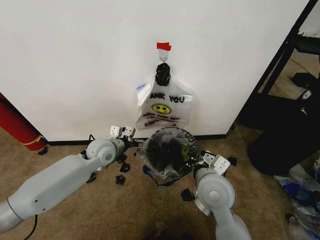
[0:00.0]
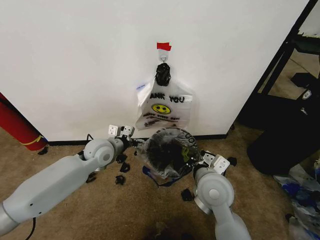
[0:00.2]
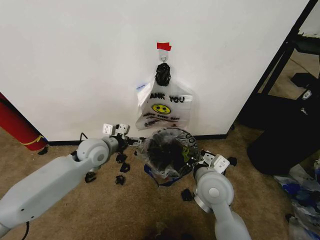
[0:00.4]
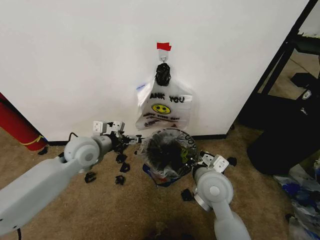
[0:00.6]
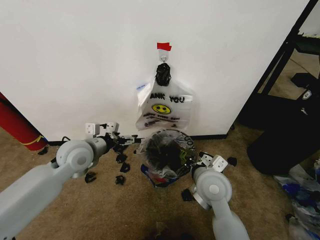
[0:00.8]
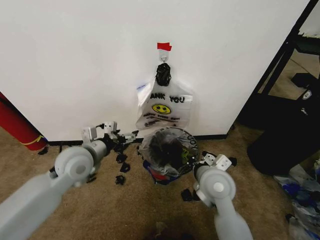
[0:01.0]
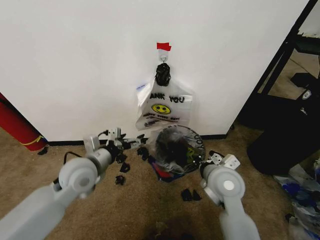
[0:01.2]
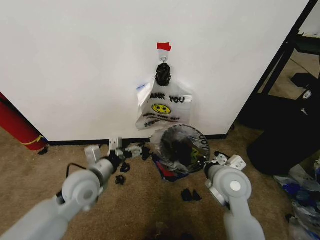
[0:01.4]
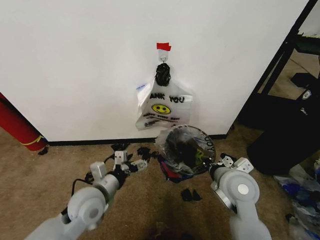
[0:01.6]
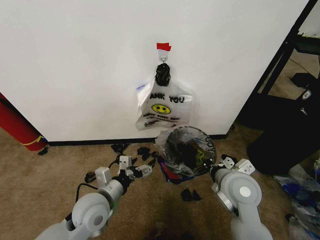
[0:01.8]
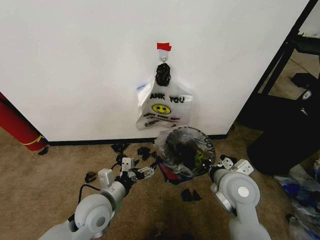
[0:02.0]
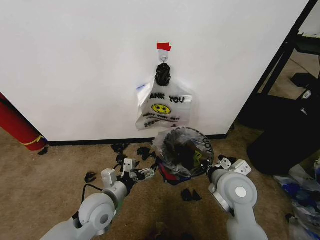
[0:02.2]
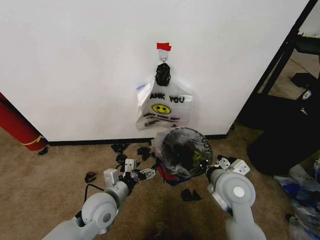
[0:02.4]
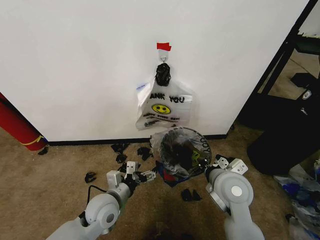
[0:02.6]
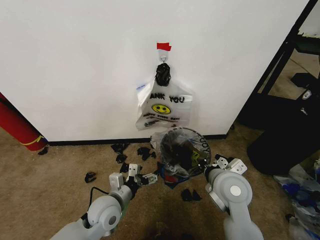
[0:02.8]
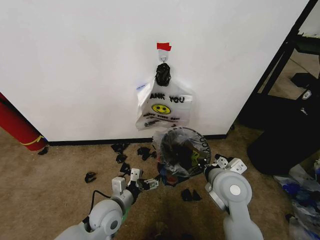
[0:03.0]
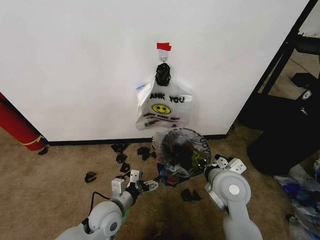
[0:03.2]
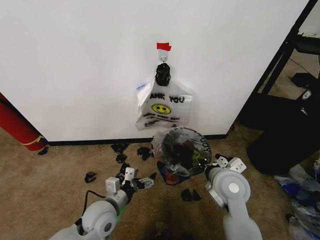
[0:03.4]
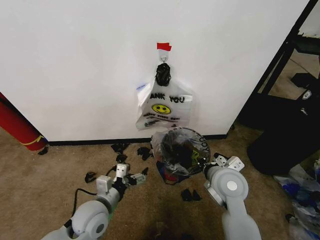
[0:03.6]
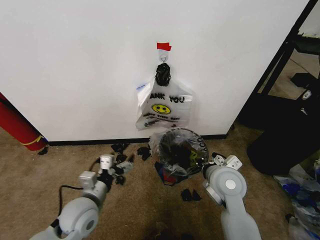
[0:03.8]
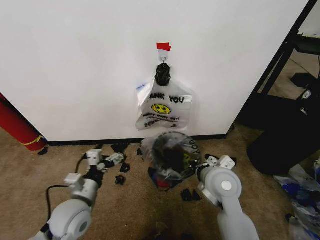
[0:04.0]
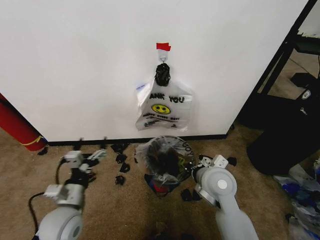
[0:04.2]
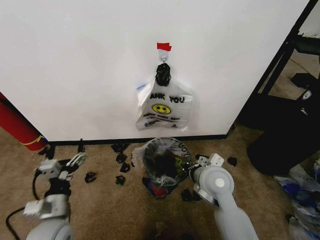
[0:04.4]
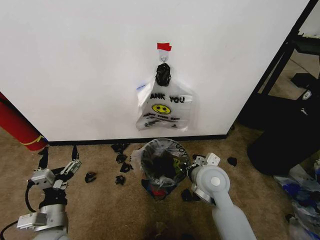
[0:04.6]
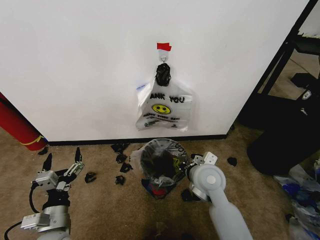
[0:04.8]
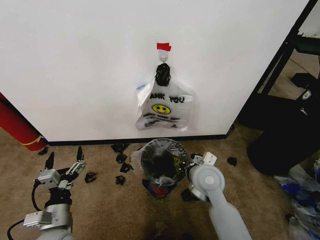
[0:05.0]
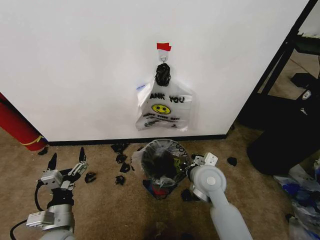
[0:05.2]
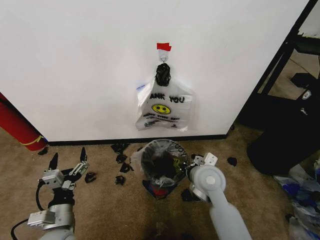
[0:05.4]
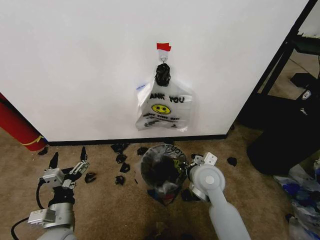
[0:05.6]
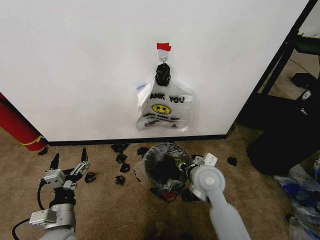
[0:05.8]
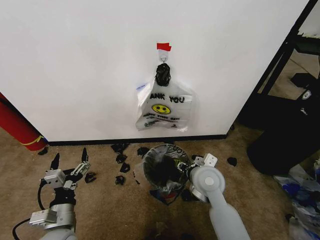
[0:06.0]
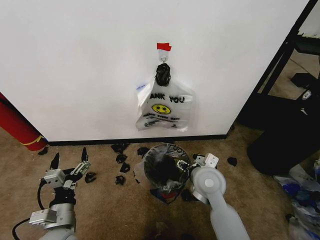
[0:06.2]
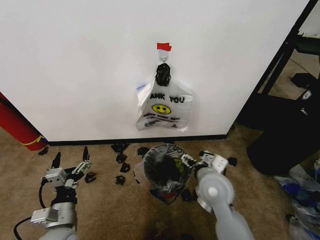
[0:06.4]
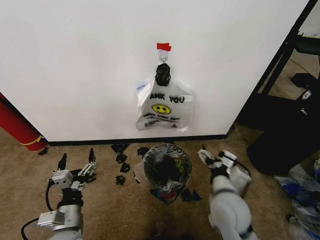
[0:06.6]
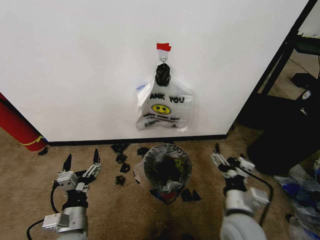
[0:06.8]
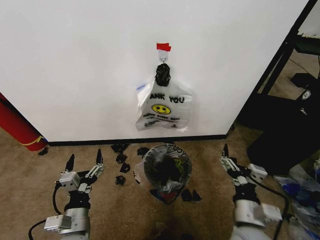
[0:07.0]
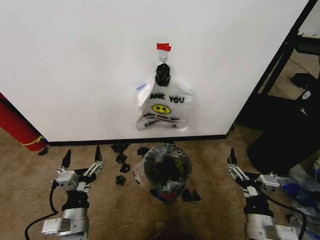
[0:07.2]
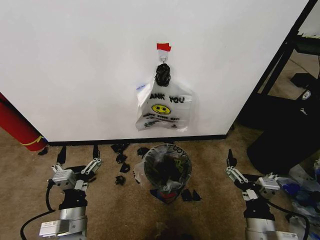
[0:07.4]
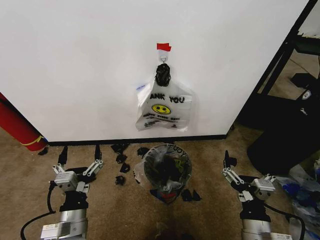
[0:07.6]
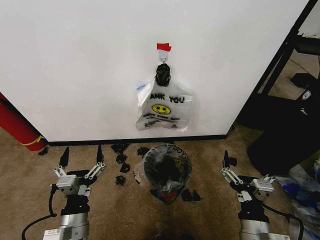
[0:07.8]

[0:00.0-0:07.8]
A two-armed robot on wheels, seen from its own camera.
Task of the whole recording: Pick up the garbage bag from the wall and place it over the trash bin.
0:00.0 to 0:01.6: The left gripper heads backward, covering roughly 15 cm. The right gripper moves to the right, approximately 5 cm.
0:01.6 to 0:03.2: The left gripper travels downward by some 10 cm.
0:03.2 to 0:04.6: The left gripper shifts roughly 15 cm to the left and backward. Meanwhile the right gripper changes place by about 5 cm.
0:04.6 to 0:06.2: The right gripper opens.
0:06.2 to 0:07.8: The right gripper travels backward by approximately 20 cm. The left gripper moves to the right, roughly 5 cm.

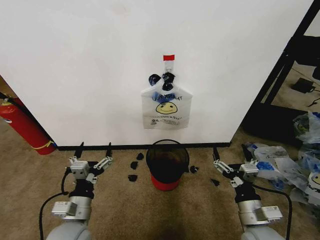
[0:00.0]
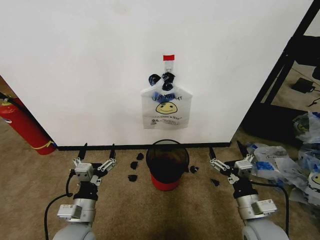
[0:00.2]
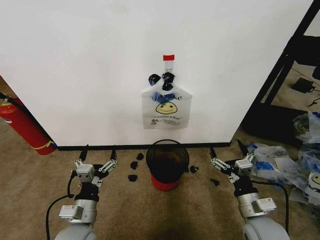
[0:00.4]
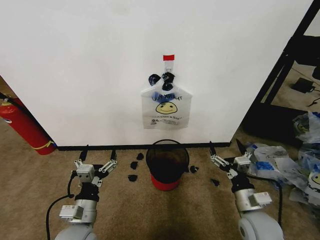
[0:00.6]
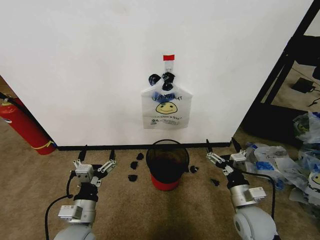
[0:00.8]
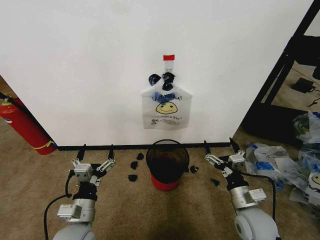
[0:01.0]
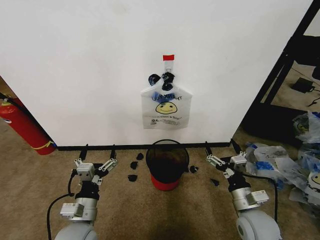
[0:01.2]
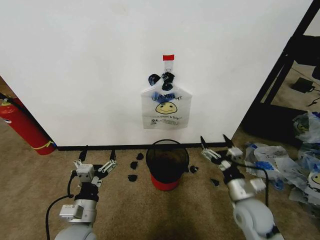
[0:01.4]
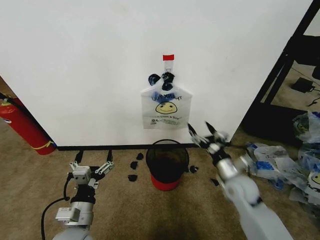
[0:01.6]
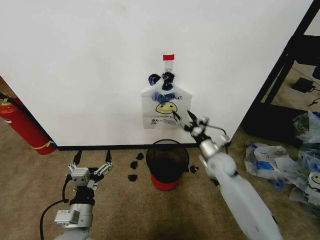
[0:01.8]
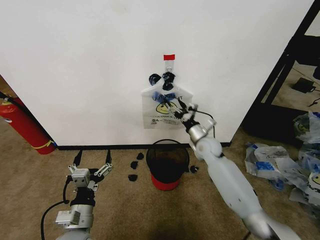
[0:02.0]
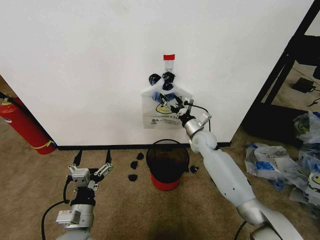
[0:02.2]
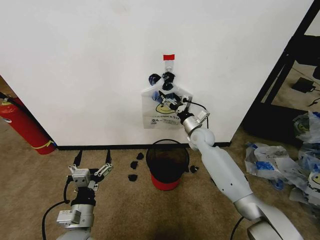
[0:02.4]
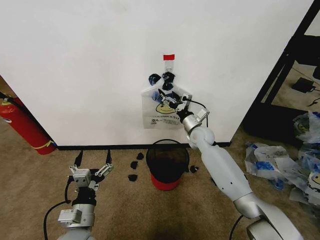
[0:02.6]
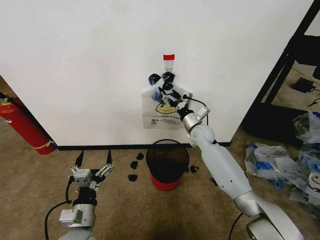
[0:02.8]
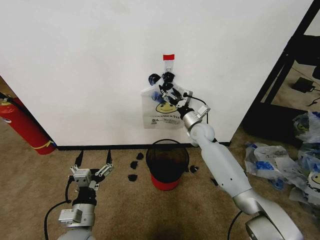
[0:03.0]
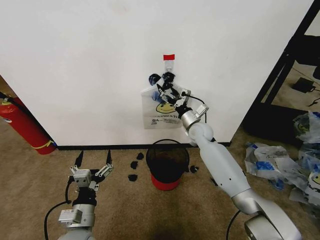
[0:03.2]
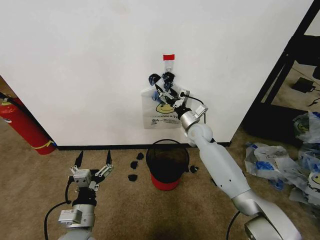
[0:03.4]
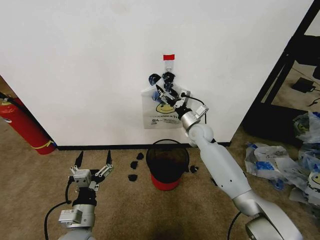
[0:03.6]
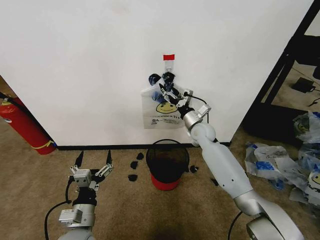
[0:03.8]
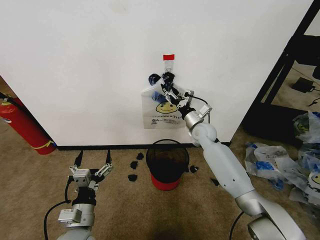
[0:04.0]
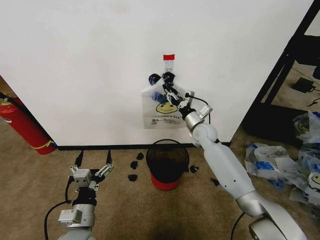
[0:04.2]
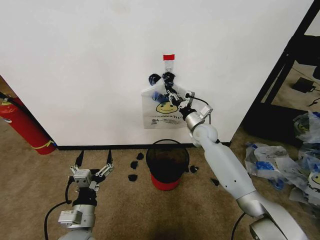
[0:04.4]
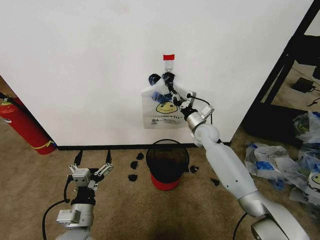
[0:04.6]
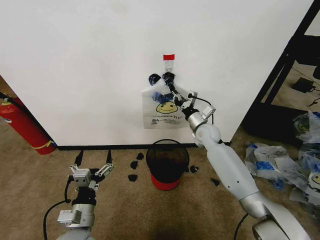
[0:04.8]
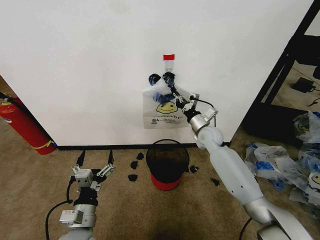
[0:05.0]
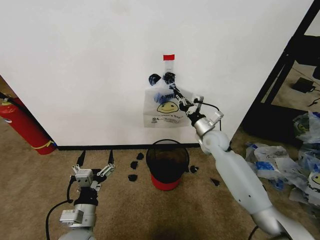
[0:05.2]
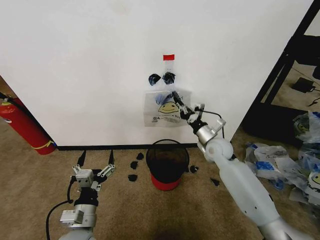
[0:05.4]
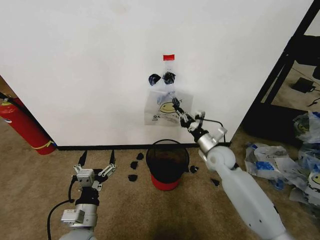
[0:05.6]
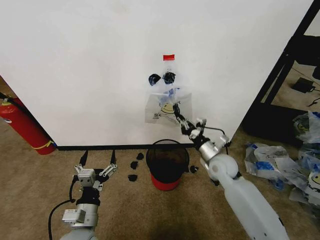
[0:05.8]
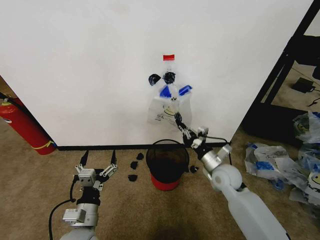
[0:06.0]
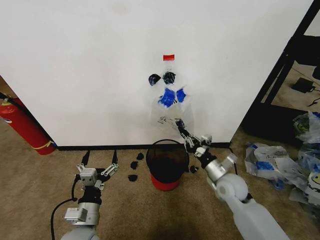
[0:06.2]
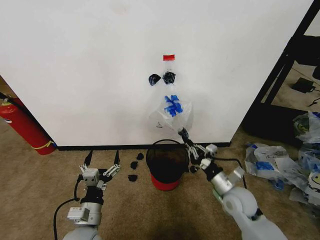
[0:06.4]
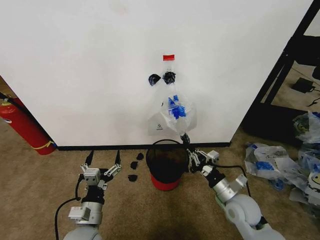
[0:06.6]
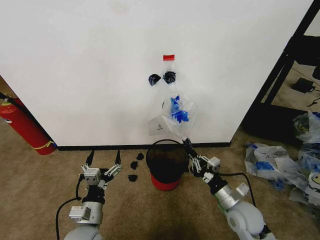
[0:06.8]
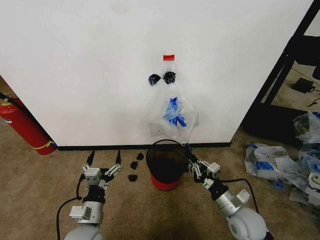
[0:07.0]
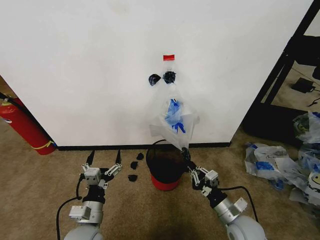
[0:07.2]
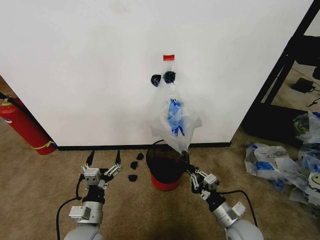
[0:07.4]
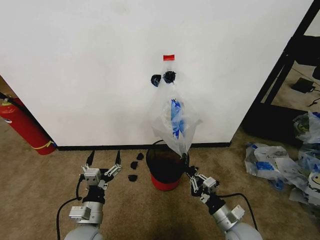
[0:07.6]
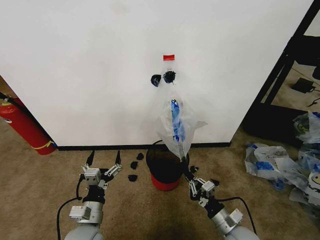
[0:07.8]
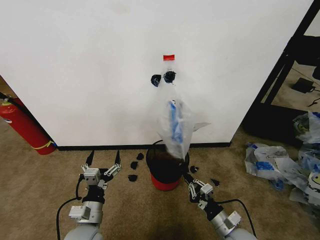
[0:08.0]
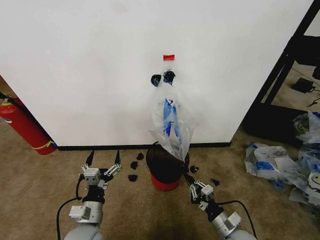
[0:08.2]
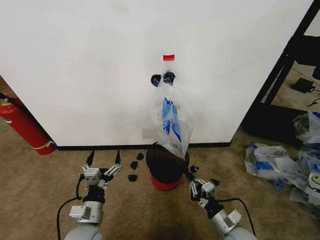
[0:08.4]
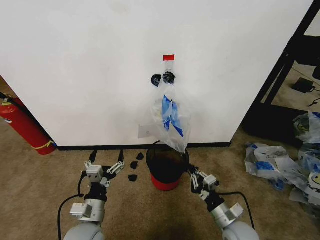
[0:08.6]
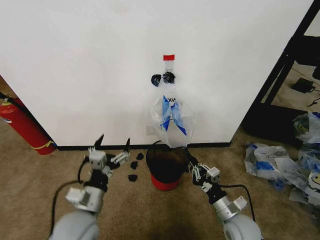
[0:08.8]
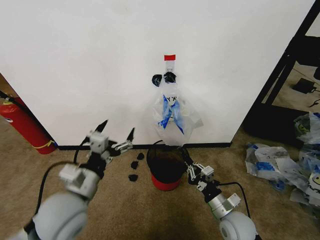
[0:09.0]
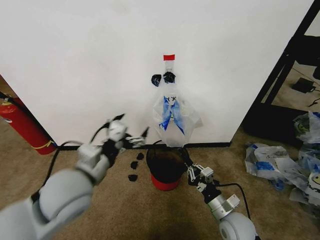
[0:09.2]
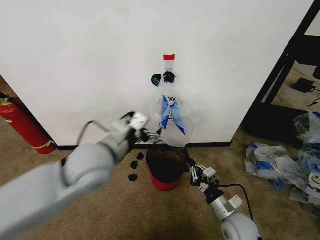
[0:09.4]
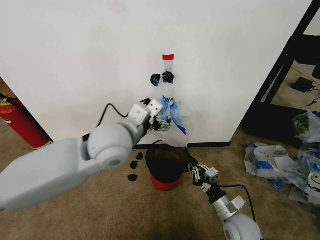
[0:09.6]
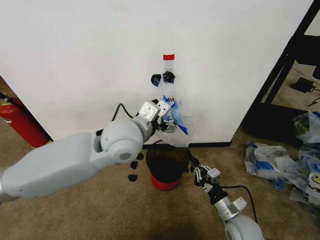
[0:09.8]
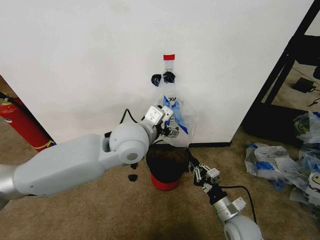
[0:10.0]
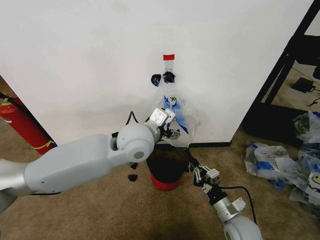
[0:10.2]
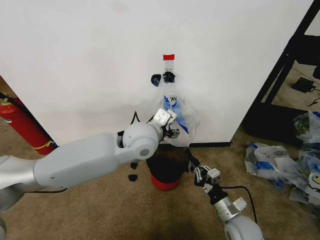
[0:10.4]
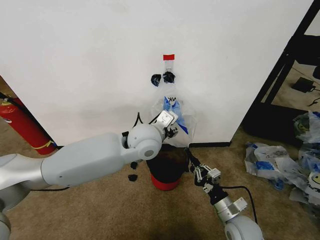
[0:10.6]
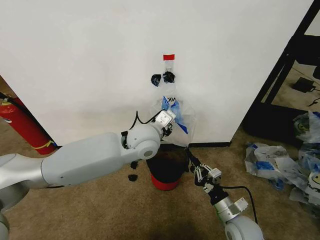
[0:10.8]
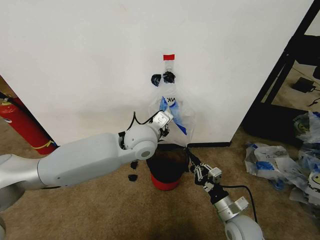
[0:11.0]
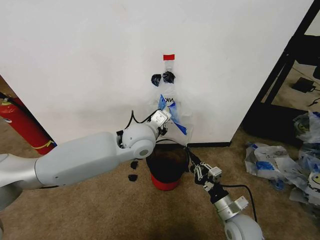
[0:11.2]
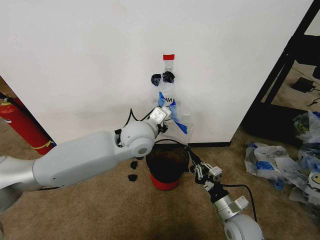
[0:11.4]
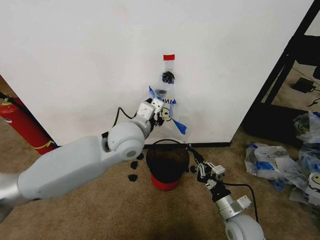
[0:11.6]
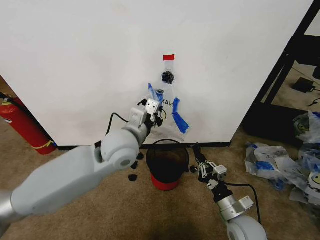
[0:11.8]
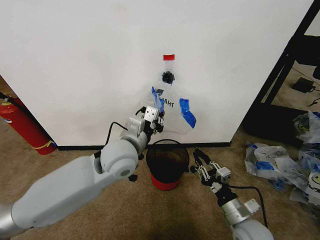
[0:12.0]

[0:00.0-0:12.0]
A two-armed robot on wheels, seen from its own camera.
Task of the whole recording: Pick up the garbage bag from the wall and place it over the trash bin.
0:01.6 to 0:03.0: The right gripper heads forward and to the left, covering roughly 25 cm.
0:03.0 to 0:04.4: The right gripper closes.
0:04.4 to 0:06.0: The right gripper heads backward, covering about 15 cm.
0:06.0 to 0:07.6: The right gripper is displaced backward and downward by some 20 cm.
0:07.6 to 0:09.0: The left gripper is displaced upward by some 15 cm.
0:09.0 to 0:10.4: The left gripper is displaced forward, to the right and upward by approximately 25 cm.
0:10.4 to 0:12.0: The left gripper heads to the left, covering some 5 cm, and closes up.

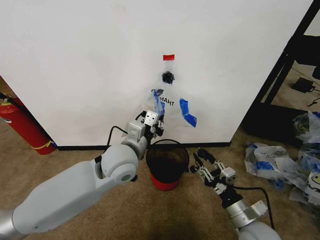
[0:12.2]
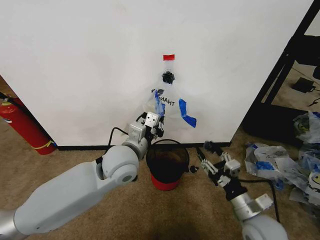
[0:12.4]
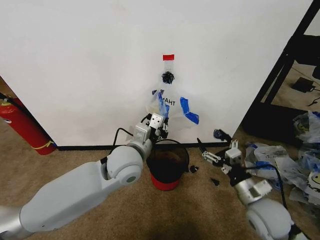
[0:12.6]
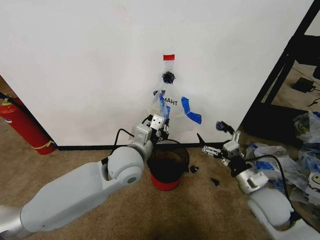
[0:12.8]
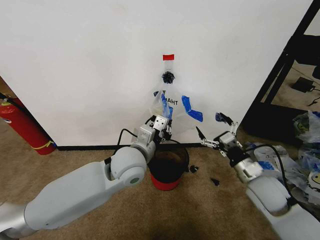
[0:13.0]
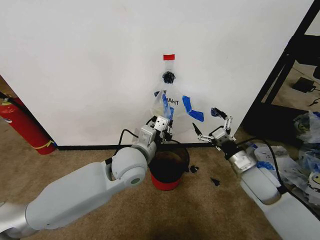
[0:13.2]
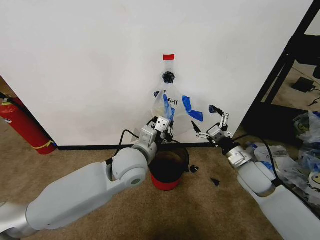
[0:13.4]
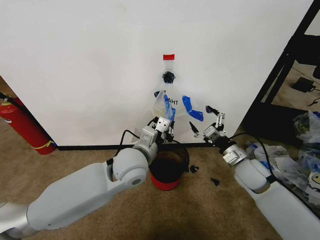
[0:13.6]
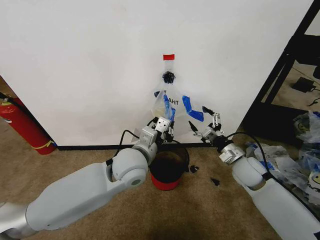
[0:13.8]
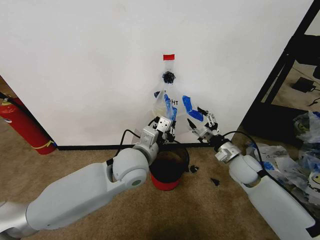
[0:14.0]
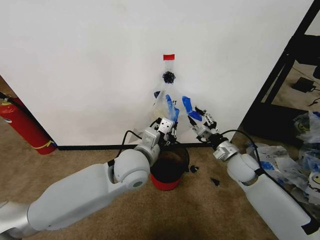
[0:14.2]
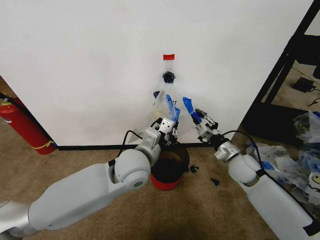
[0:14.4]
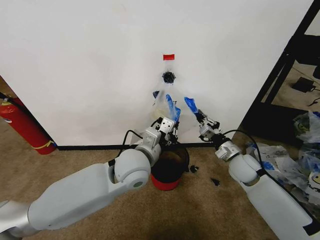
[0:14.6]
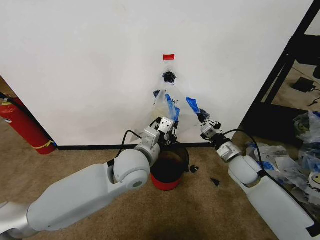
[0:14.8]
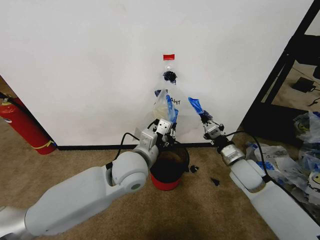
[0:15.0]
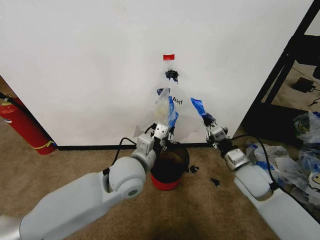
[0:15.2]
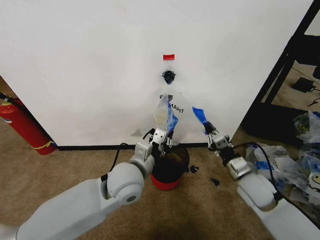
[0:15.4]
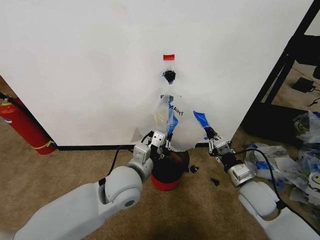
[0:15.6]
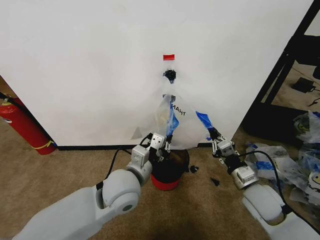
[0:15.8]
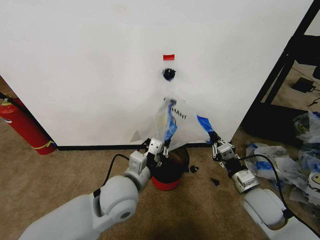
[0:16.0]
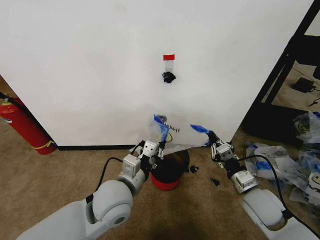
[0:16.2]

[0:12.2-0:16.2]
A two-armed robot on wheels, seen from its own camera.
Task of the whole recording: Pick up the garbage bag from the wall and place it over the trash bin.
0:12.2 to 0:13.6: The right gripper shifts roughly 15 cm forward, and opens its fingers.
0:13.6 to 0:14.8: The right gripper closes up.
0:14.8 to 0:16.2: The left gripper travels backward by about 5 cm, while the right gripper goes some 10 cm backward.
